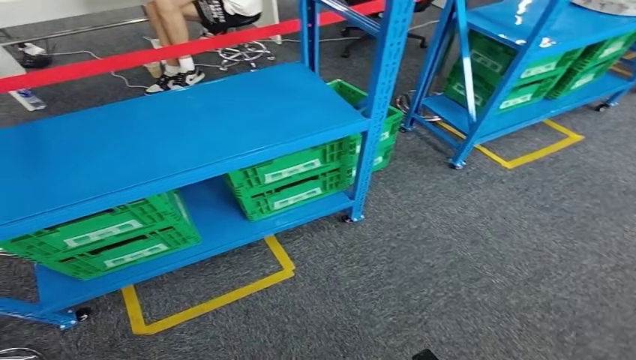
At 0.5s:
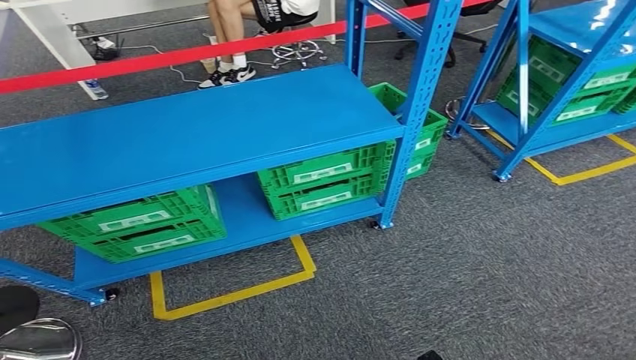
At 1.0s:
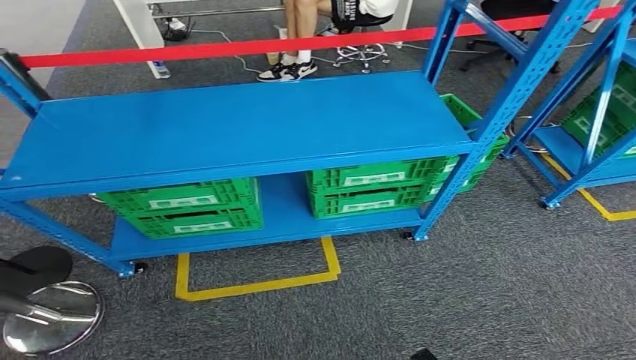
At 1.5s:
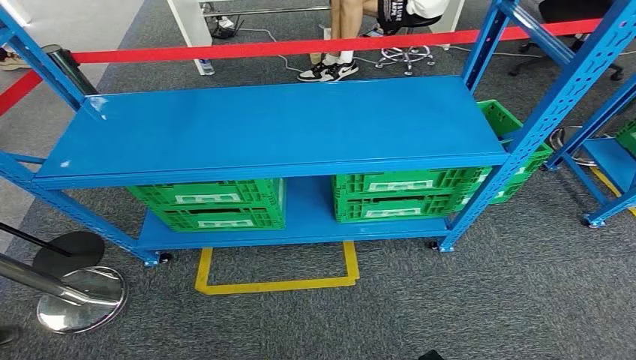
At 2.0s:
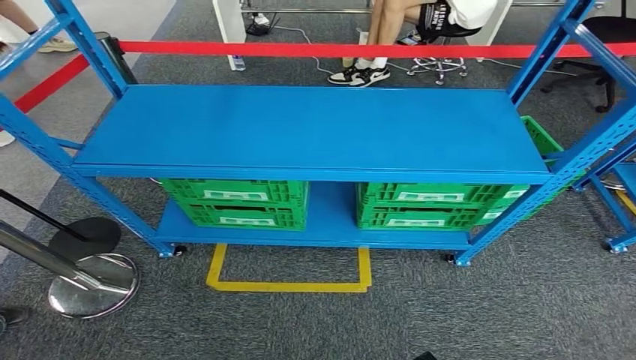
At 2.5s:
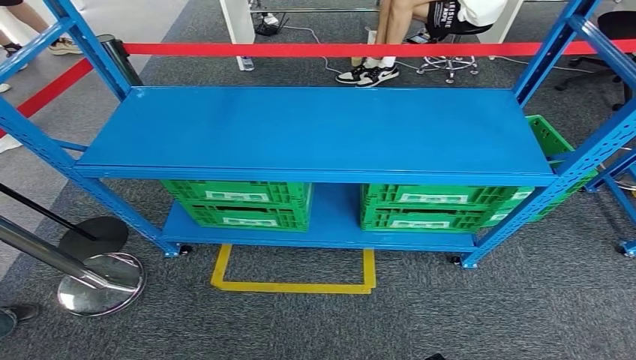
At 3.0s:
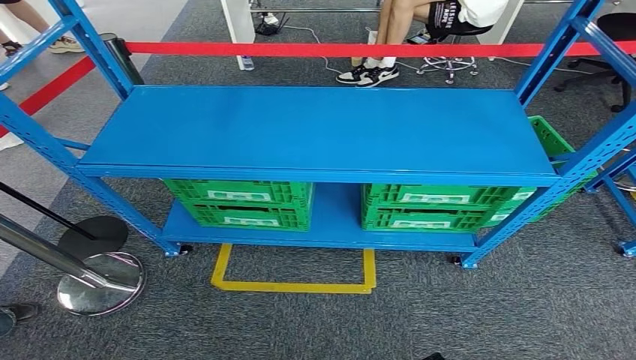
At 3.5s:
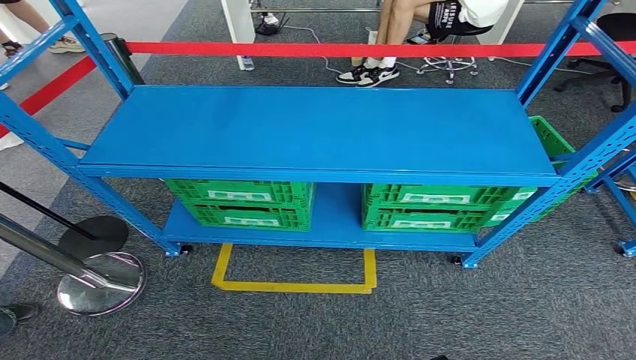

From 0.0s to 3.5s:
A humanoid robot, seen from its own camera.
Step, from 0.0s to 3.5s: Return to the initial position at the workbench.
From 2.0s to 3.5s: There are only small adjustments of the hands.
